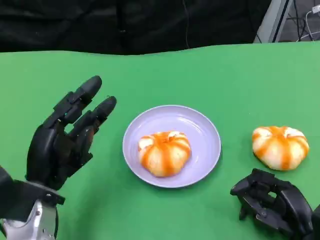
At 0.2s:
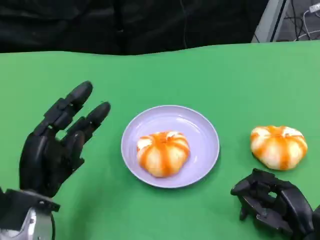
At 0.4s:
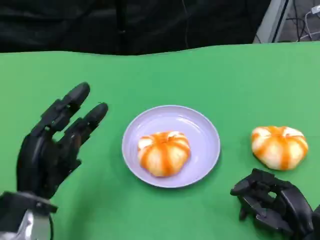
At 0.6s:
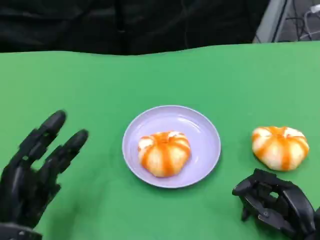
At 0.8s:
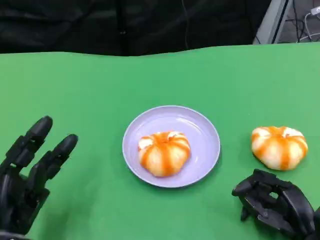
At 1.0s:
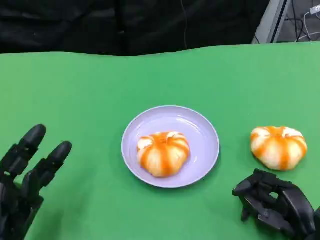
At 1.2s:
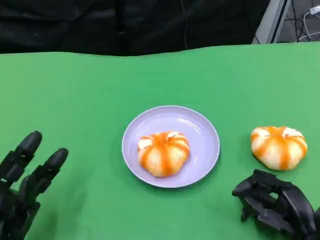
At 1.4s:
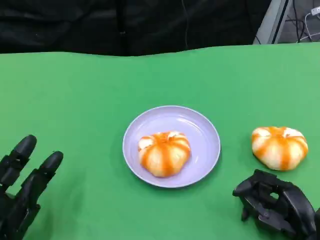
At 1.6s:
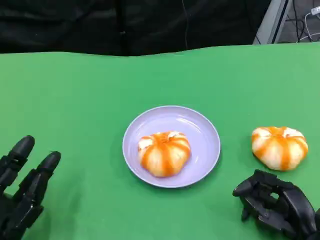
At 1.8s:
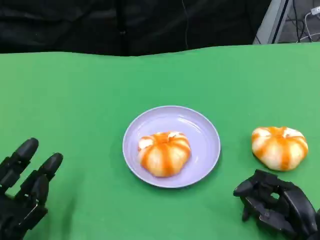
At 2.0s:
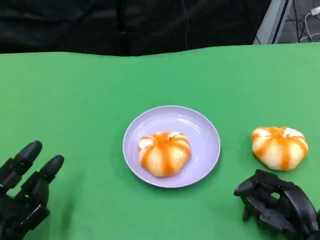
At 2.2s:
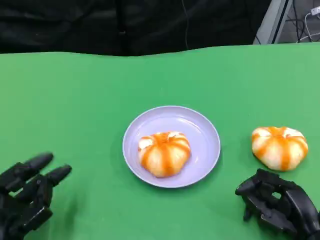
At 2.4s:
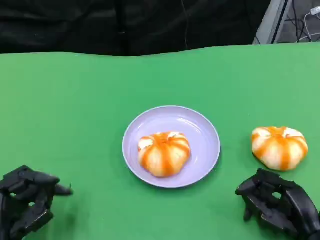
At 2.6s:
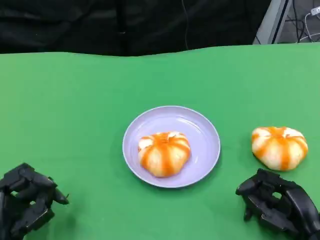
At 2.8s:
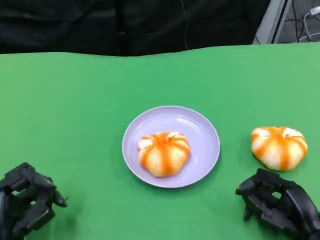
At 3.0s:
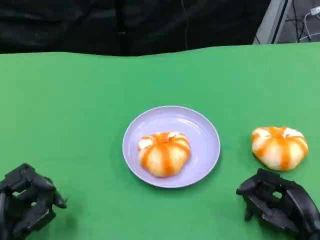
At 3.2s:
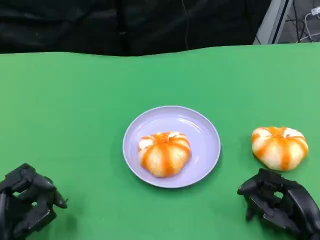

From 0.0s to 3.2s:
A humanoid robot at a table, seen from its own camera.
Task of the whole recording: Grasp the bread from the table and place it into the plate.
From 0.0s to 1.6s: The left hand heads backward and downward, covering about 10 cm.
From 1.6s to 3.2s: The hands make only small movements.

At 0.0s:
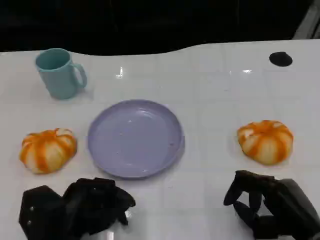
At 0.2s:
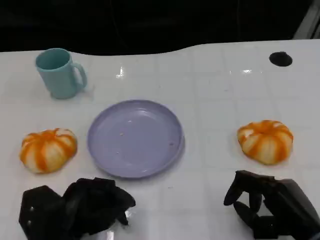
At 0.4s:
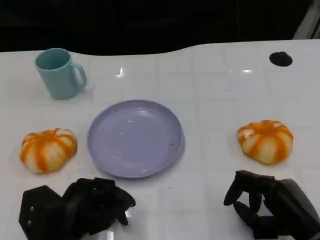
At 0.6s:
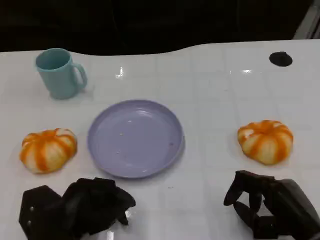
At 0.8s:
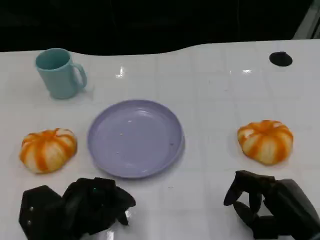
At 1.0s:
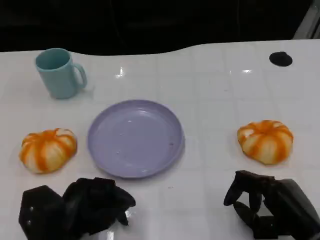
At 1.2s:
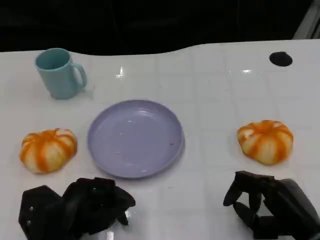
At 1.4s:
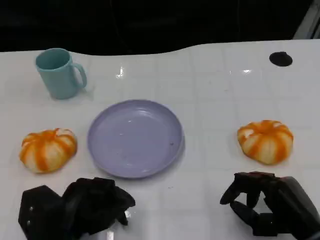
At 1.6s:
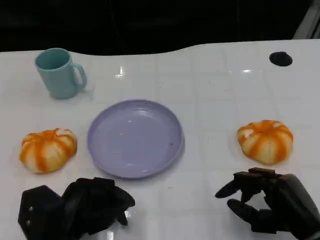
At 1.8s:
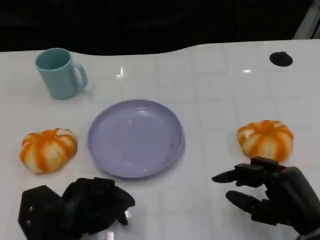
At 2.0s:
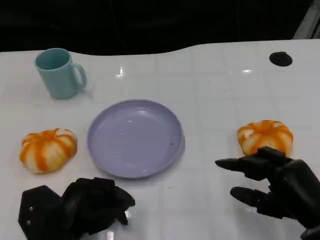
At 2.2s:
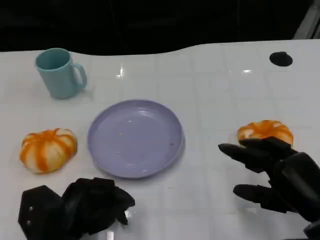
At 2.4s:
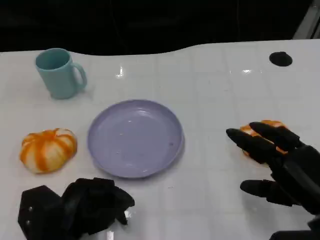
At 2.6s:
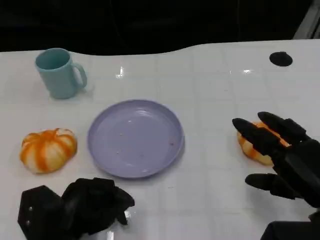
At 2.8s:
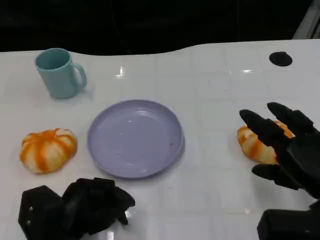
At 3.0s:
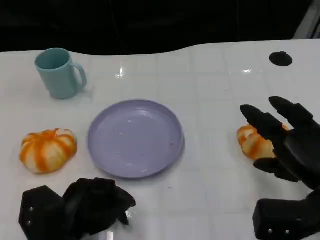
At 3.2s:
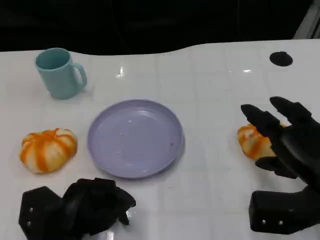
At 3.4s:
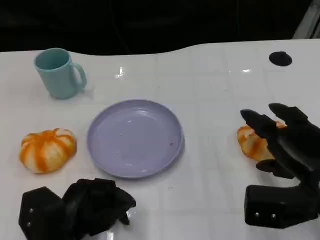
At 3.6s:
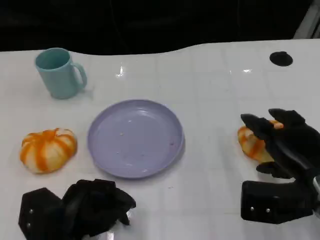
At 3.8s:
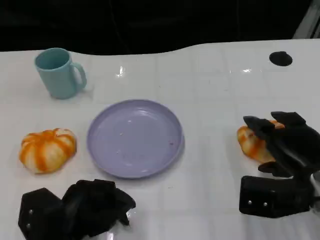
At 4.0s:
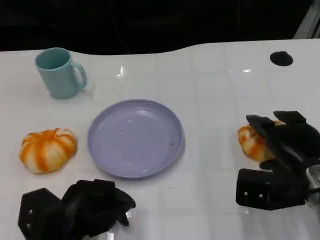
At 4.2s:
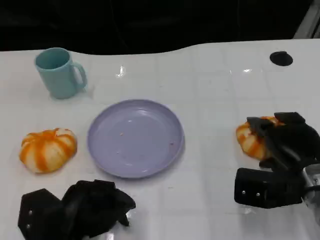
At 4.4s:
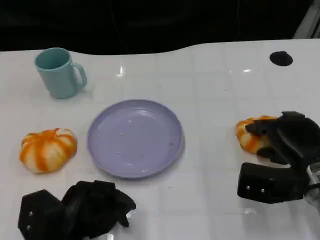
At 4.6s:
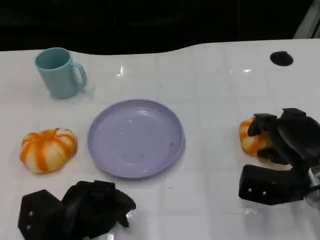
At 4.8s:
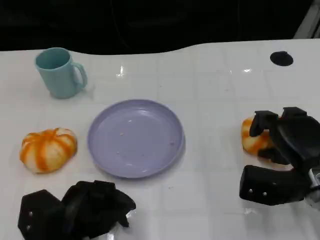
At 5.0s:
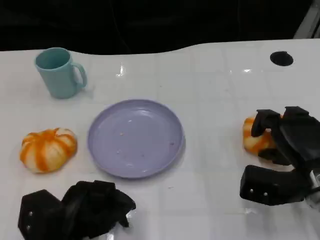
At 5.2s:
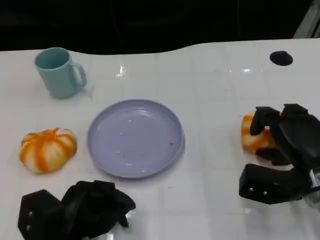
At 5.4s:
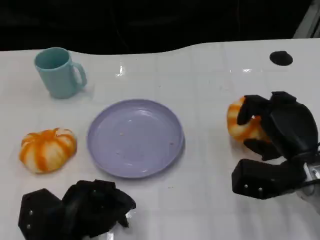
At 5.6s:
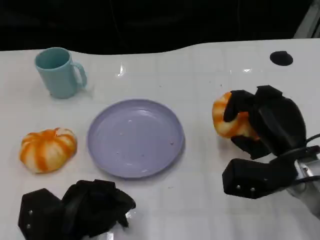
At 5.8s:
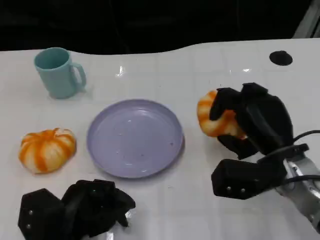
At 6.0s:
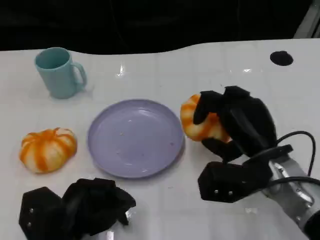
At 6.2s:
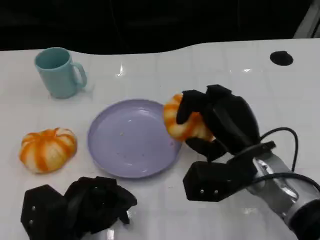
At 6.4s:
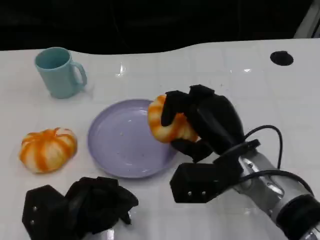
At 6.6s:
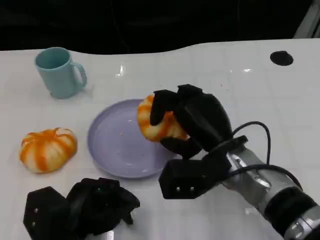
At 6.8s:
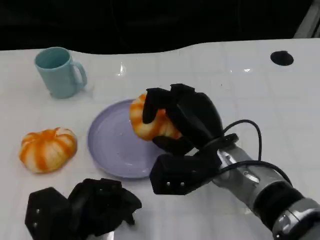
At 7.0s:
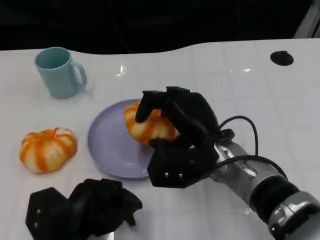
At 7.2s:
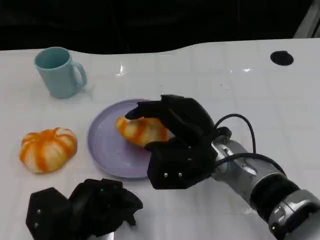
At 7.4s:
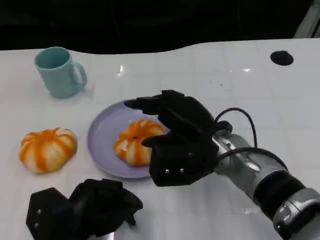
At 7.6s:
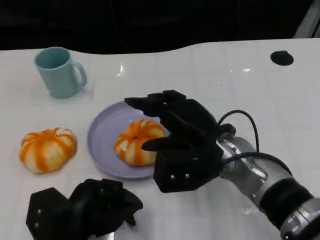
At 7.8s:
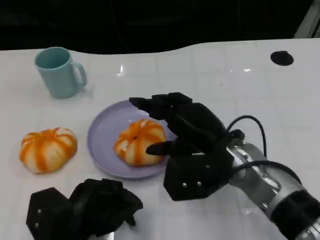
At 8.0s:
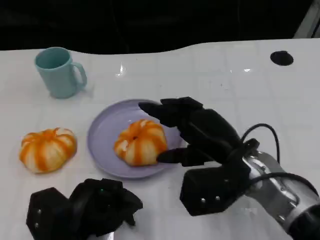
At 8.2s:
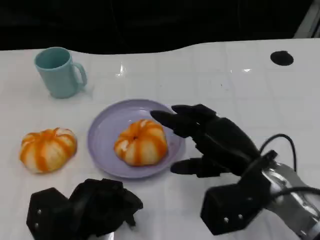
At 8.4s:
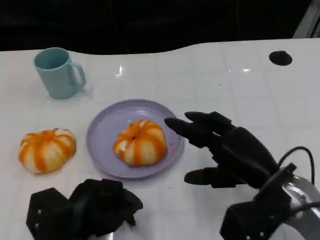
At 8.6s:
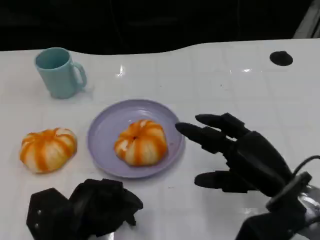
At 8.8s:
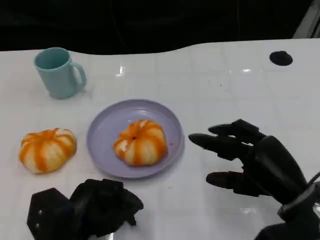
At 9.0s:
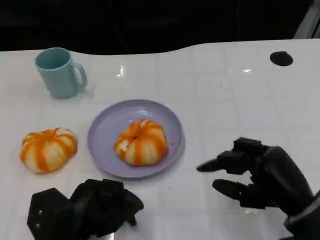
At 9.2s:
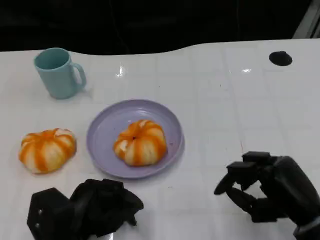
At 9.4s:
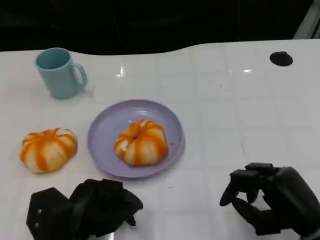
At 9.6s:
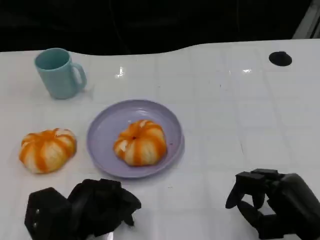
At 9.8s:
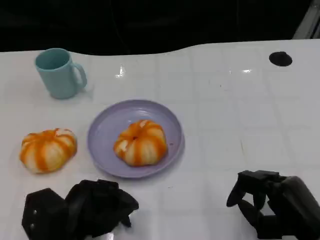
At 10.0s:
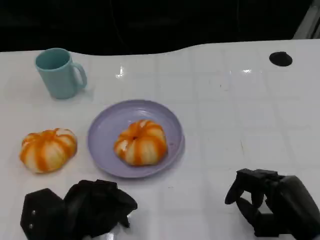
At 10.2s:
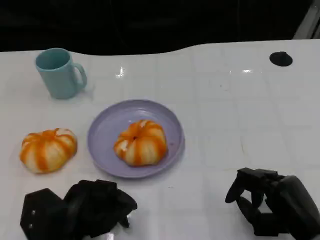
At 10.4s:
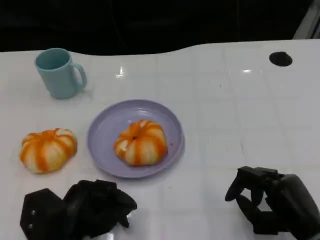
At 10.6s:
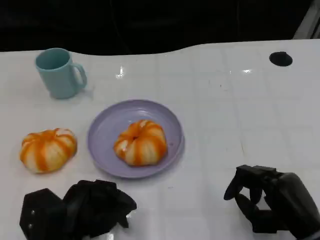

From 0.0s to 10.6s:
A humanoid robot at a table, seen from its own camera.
Task of the whole recording: Grasp the bread from the table and place it into the plate.
From 0.0s to 1.6s: The hands make only small movements.
From 1.6s to 3.0s: The right hand is displaced upward by some 5 cm.
From 3.0s to 4.6s: The right hand moves forward, roughly 5 cm.
From 4.6s to 6.0s: The right hand shifts some 10 cm to the left.
From 6.0s to 7.6s: The right hand heads to the left, covering about 5 cm.
From 7.6s to 9.0s: The right hand goes approximately 15 cm to the right and backward.
From 9.0s to 10.6s: The hands make only small movements.

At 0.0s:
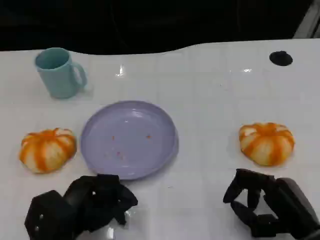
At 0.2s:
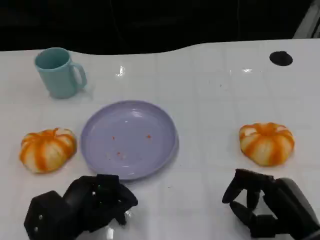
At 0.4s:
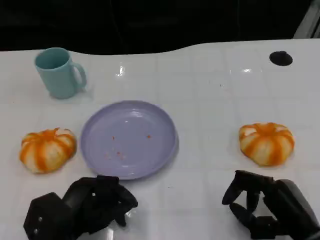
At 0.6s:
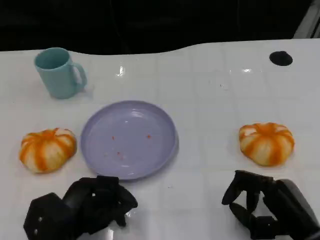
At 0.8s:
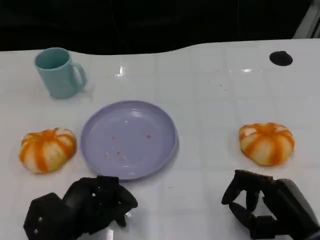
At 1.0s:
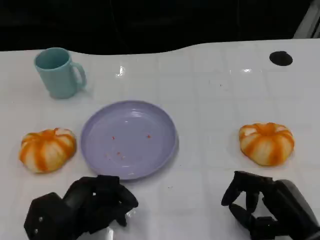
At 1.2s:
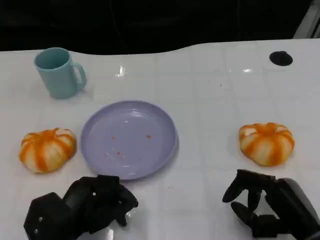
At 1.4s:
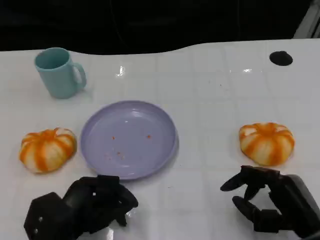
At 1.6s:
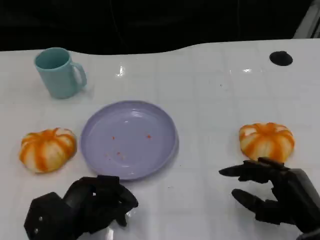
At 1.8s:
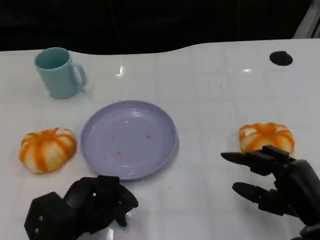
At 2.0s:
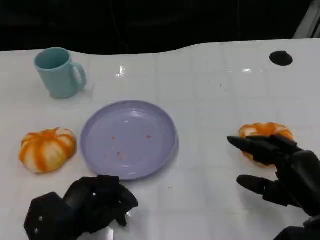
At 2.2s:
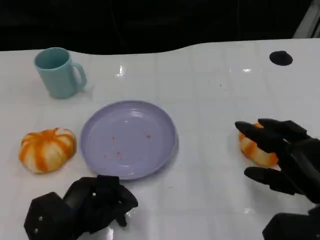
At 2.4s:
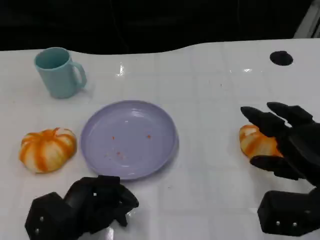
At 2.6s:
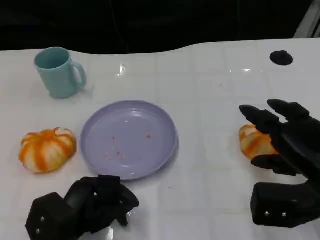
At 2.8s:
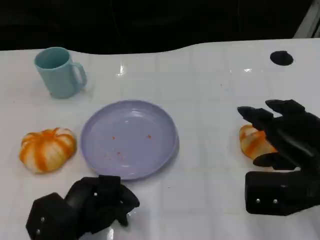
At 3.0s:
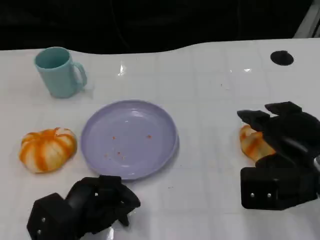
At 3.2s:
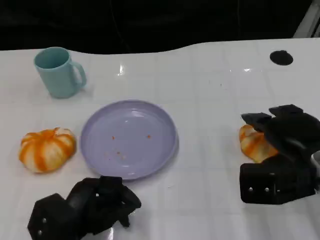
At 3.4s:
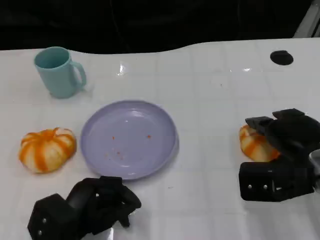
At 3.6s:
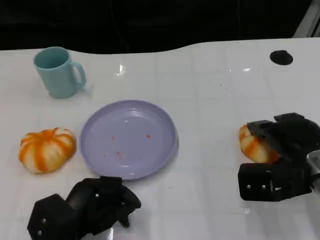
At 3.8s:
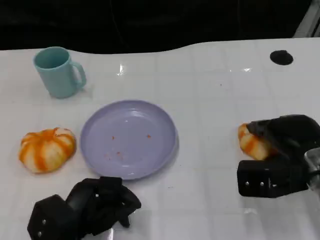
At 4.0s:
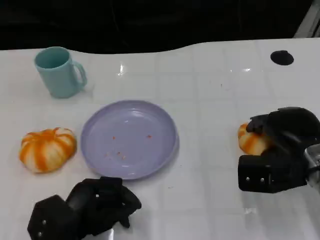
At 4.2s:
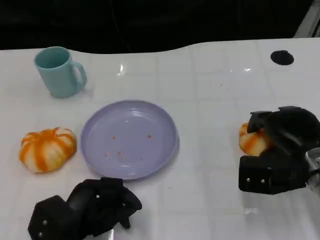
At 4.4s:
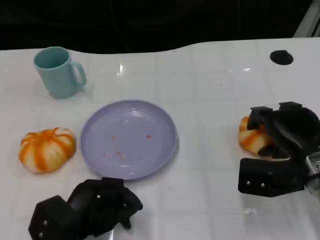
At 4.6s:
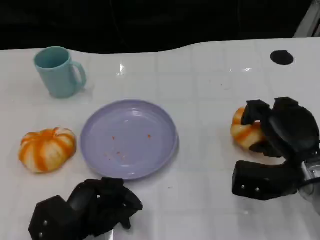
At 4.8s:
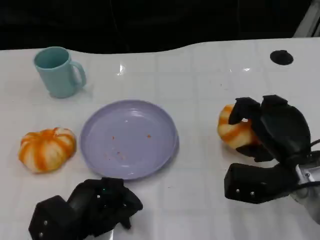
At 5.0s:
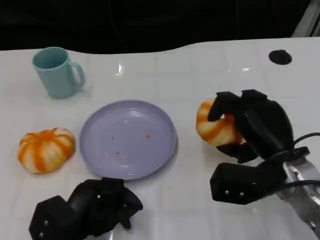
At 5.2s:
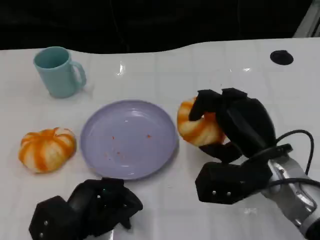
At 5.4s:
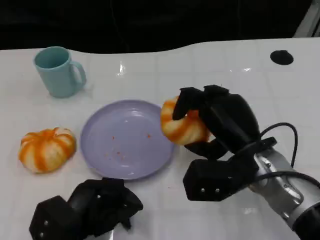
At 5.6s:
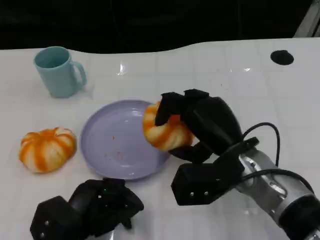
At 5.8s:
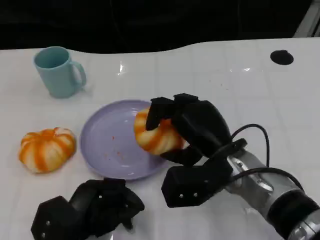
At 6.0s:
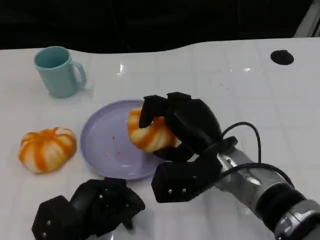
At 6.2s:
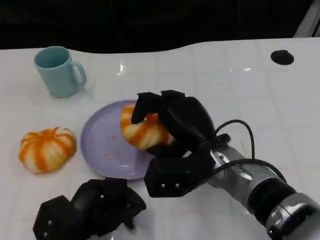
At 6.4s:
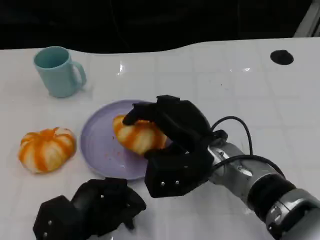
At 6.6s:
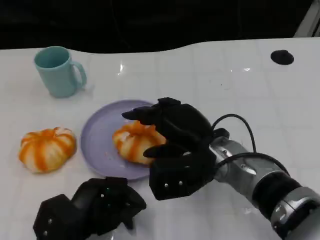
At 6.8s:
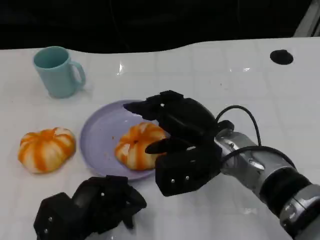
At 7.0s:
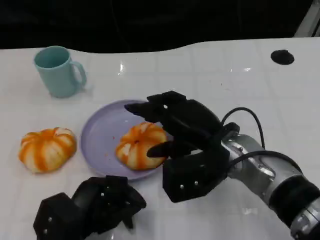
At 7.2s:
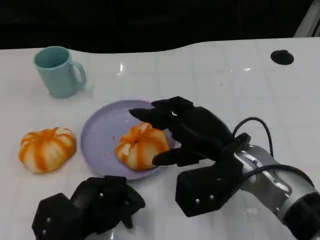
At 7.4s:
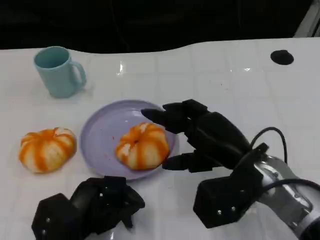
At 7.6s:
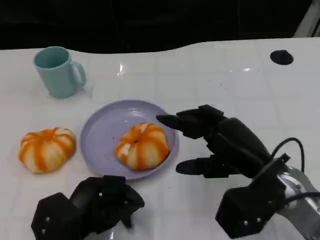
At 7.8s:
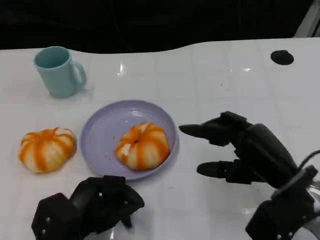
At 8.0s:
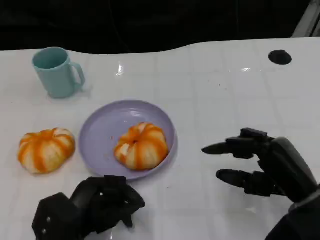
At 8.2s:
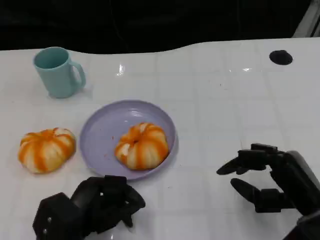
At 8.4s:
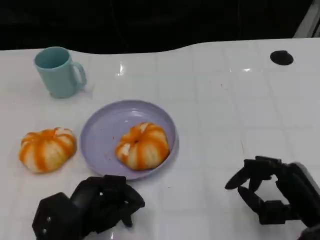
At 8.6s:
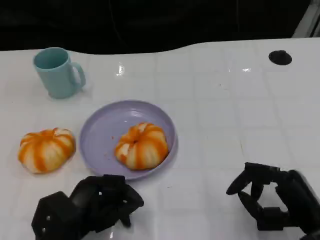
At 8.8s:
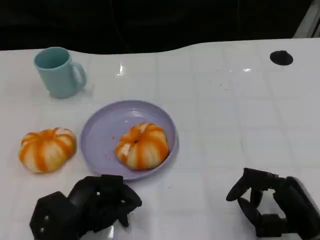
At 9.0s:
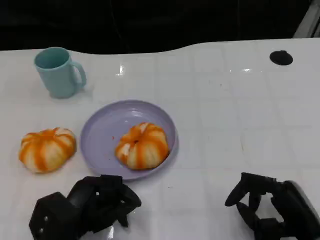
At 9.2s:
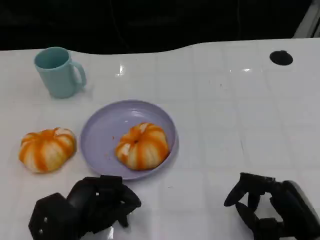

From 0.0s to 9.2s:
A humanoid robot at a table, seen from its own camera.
Task of the whole recording: Grasp the bread from the table and place it into the plate.
From 0.0s to 1.6s: There are only small adjustments of the hands.
From 1.6s to 3.0s: The right hand goes about 10 cm upward and forward.
From 3.0s to 4.6s: The right hand goes about 5 cm downward.
From 4.6s to 6.2s: The right hand travels to the left by about 15 cm.
From 6.2s to 7.6s: The right hand travels to the right by some 10 cm.
From 7.6s to 9.2s: The right hand is displaced downward, backward and to the right by about 10 cm.
